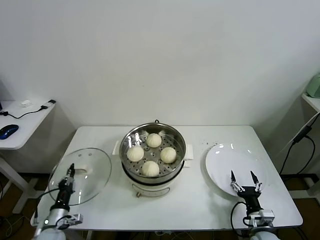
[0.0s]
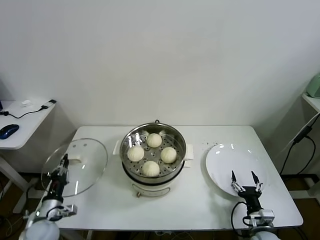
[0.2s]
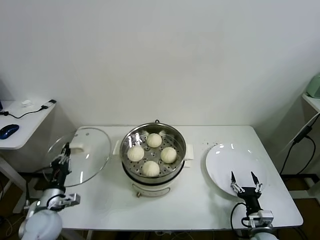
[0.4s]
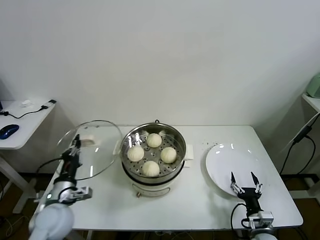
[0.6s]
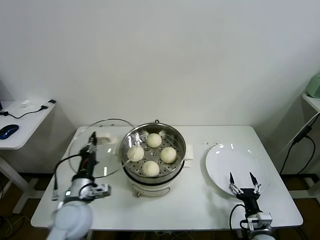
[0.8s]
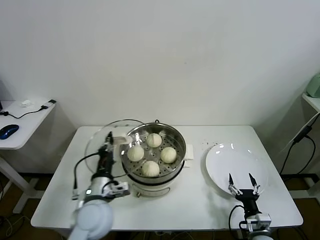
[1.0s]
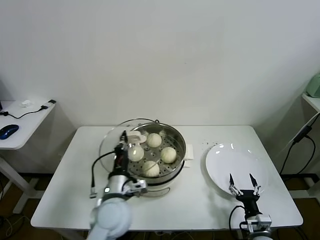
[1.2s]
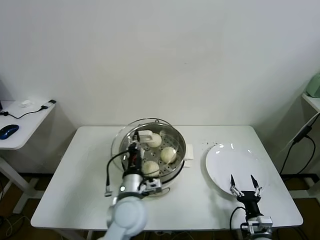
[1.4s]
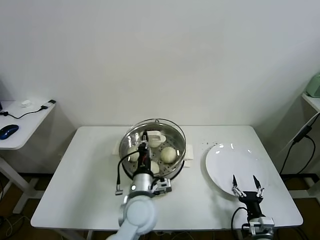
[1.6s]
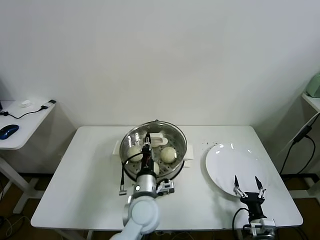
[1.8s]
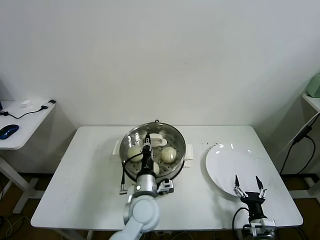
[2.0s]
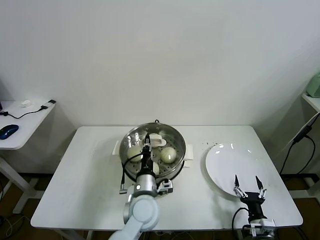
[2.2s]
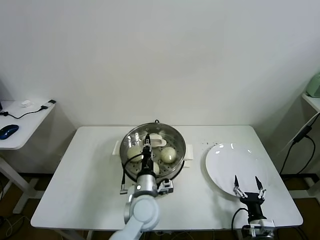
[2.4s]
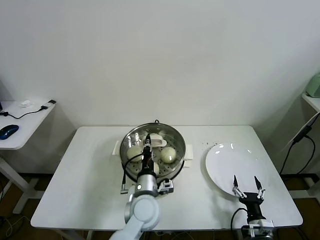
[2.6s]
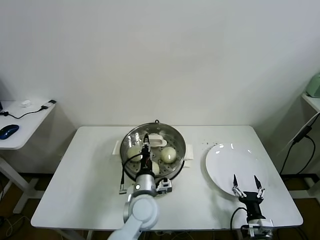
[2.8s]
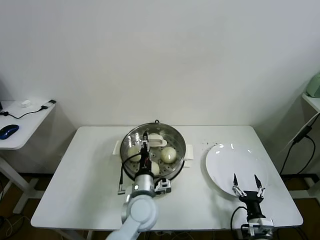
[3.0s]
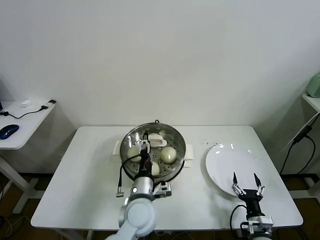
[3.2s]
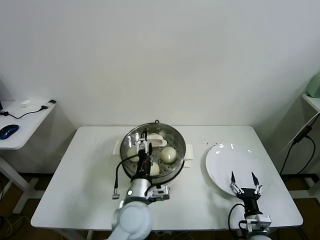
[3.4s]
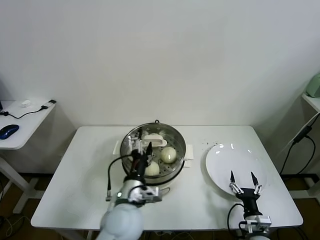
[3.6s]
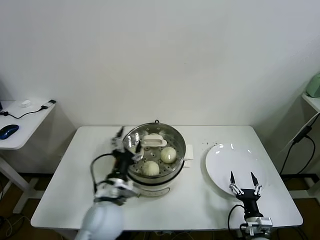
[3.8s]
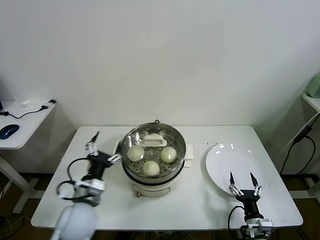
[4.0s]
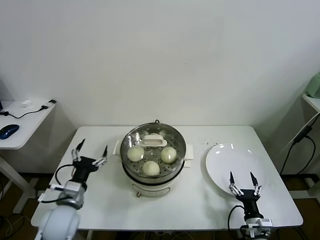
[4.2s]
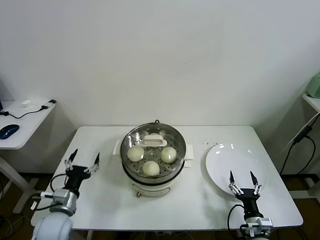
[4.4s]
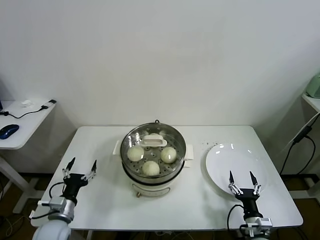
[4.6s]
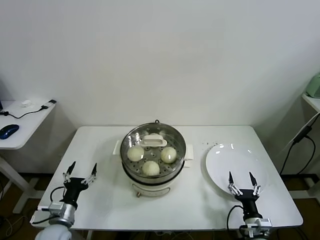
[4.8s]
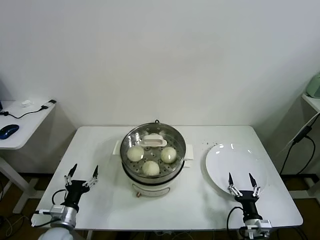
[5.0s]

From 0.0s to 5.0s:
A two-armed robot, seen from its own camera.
Task of the whole recording: take steamed baozi put them in steamer.
Step, from 0.0s to 2.8s: Place the pot lid on the steamer with left gripper.
From 0.0s to 1.6s: The left gripper is displaced to the right and upward by roughly 35 cm.
From 1.6s to 3.4s: The left gripper opens up.
From 3.4s to 5.0s: The left gripper travels to the left and downward by approximately 30 cm.

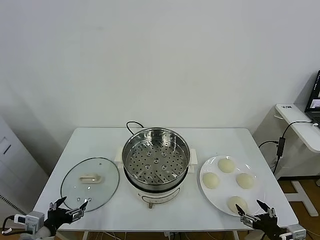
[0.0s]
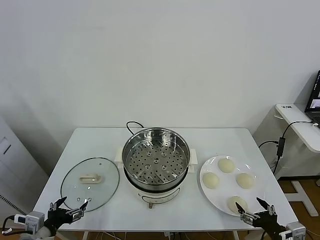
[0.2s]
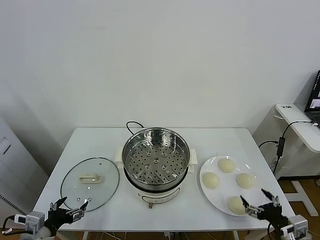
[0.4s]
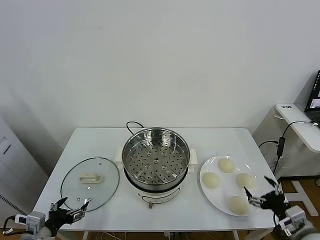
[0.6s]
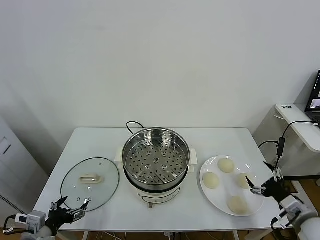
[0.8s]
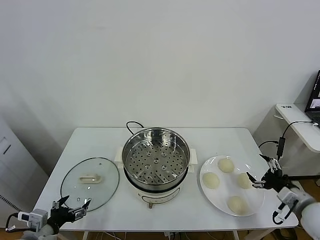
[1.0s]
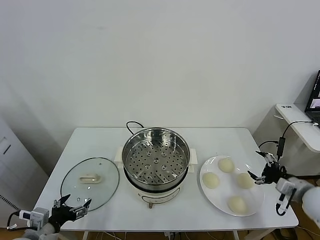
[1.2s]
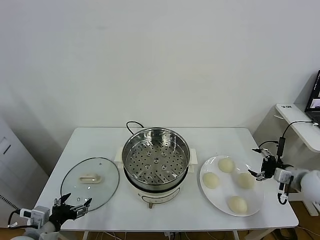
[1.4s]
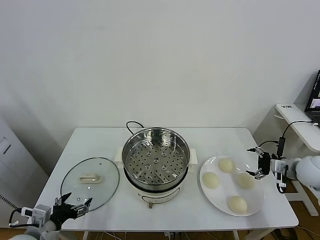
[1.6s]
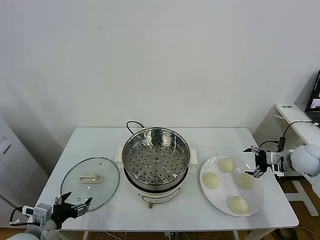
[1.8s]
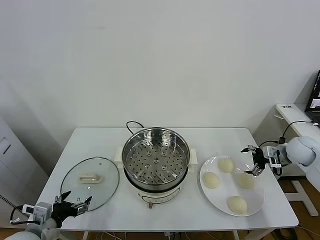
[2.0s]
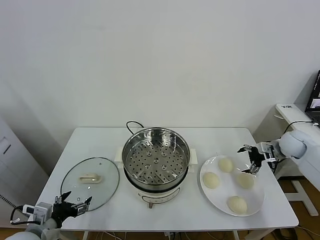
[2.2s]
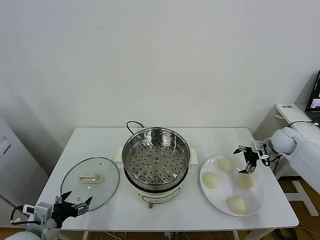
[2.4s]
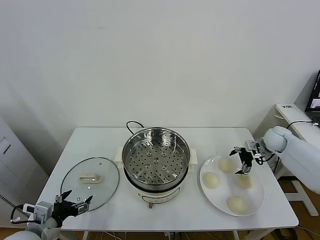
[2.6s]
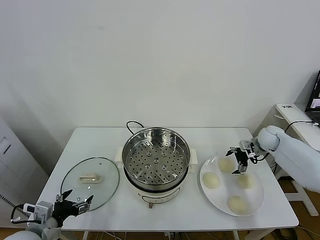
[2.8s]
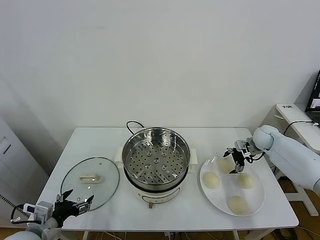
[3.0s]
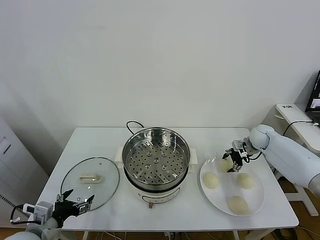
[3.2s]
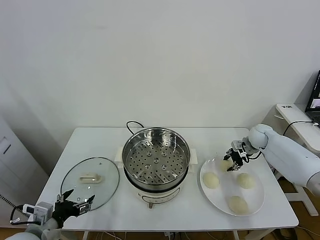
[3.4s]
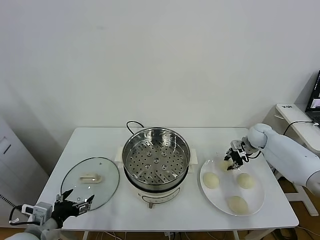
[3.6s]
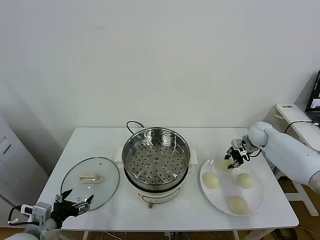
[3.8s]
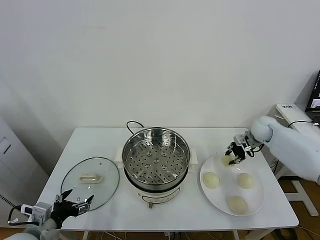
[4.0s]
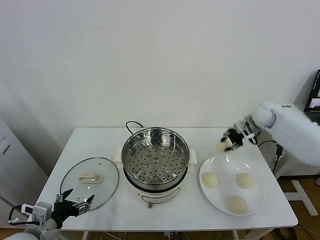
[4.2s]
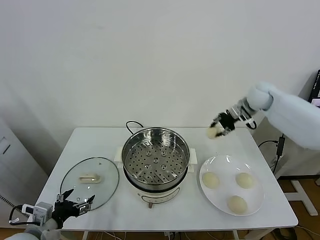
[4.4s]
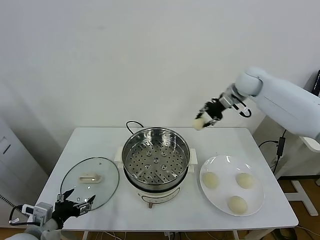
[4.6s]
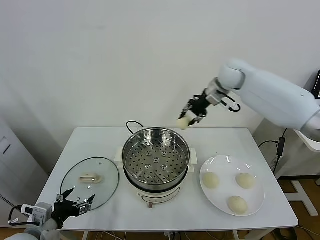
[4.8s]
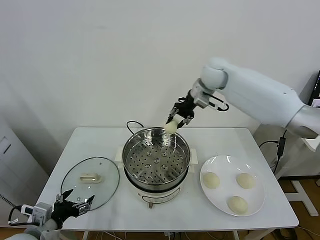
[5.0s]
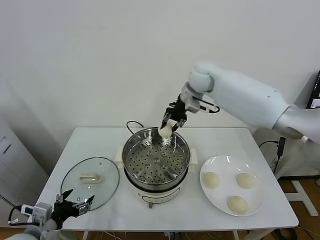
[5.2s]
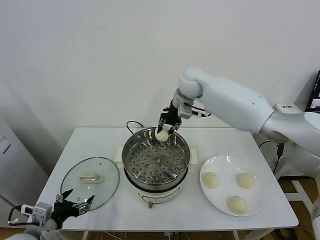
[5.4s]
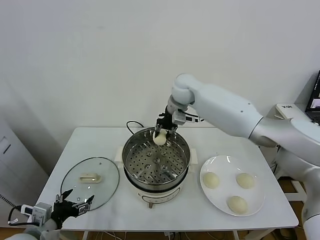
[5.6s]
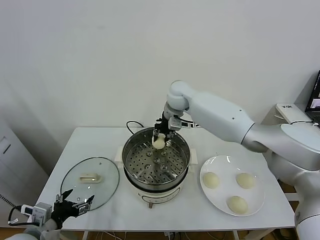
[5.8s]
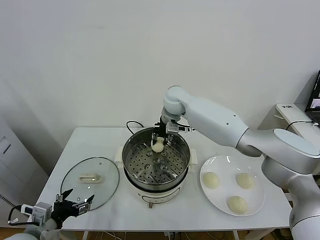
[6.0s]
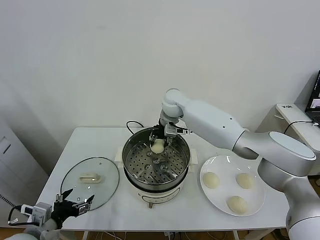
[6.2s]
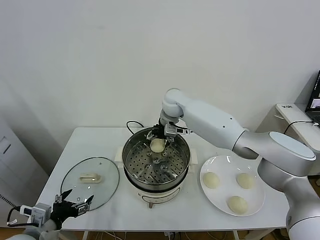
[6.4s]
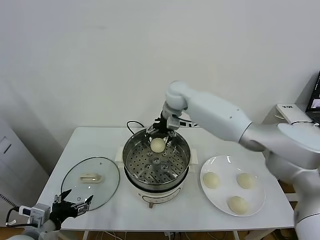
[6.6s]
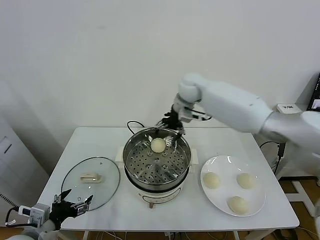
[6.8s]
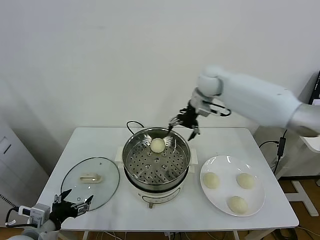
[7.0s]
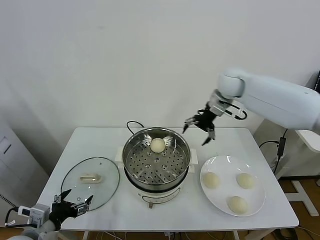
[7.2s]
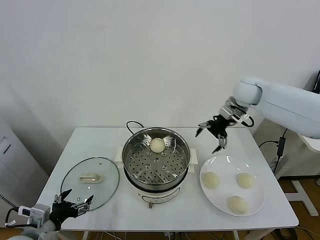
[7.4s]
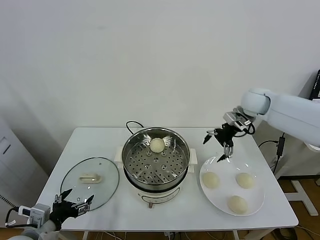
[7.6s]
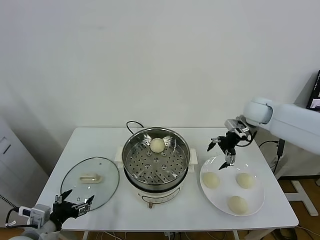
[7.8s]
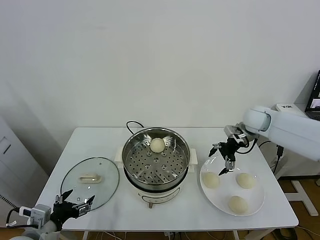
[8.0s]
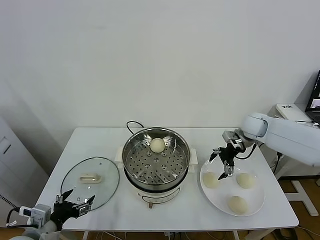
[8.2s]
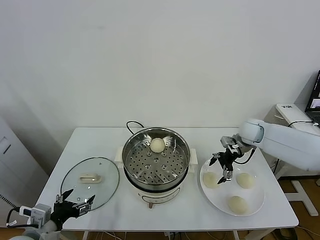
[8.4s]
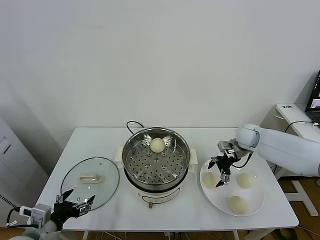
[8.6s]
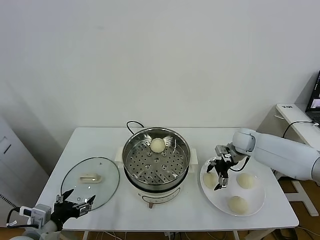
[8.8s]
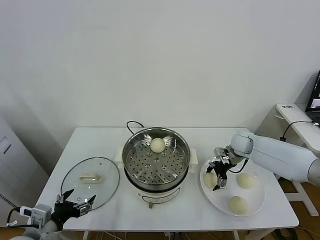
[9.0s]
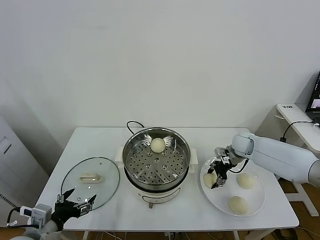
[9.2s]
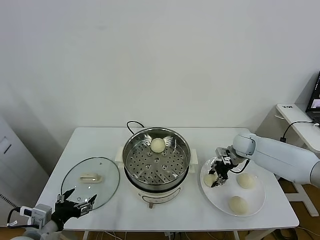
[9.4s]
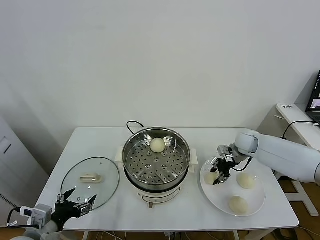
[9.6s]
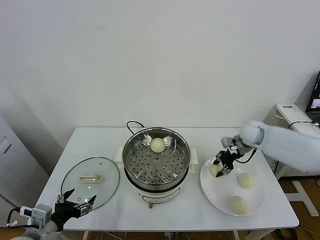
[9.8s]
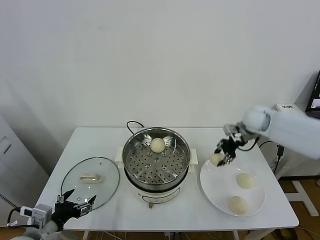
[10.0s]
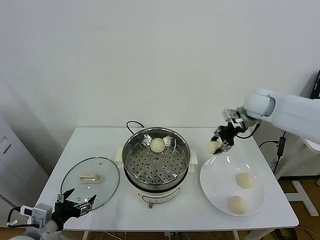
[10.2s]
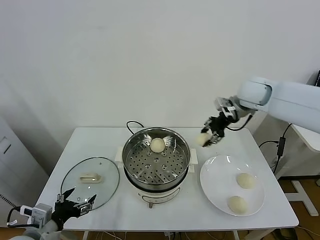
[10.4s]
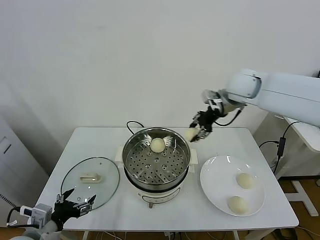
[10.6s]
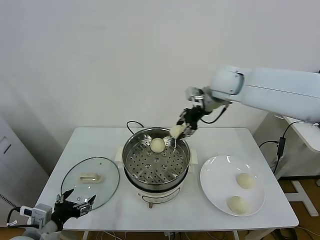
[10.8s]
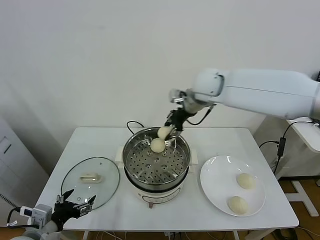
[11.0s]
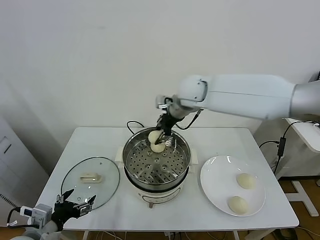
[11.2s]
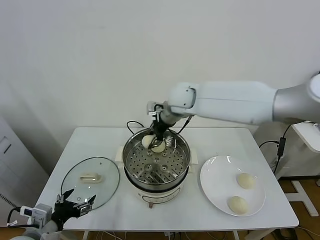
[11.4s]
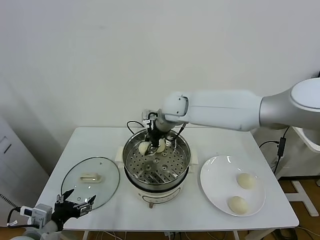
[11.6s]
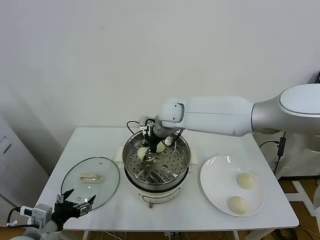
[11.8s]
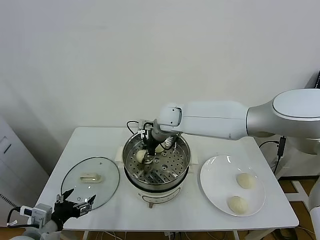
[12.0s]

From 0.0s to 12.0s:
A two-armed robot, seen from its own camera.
Task of the whole recording: take steamed baozi put them in steamer.
Step, from 0.0s to 3.2s: Grasp the baozi in the plate with right gripper.
Step, from 3.4s to 6.4s: Place the baozi on the steamer with right gripper.
Step, from 6.6s to 9.2s: Grasp the baozi in the plate with right gripper.
From 1.6s to 3.0s: The right gripper shifts some 15 cm forward.
From 3.0s to 4.4s: The right gripper heads upward and to the left, covering approximately 20 cm, and closes up.
From 4.4s to 6.0s: The right gripper goes roughly 30 cm to the left.
From 6.0s to 7.6s: The right gripper moves to the right, roughly 25 cm, and opens its fingers.
From 7.6s to 9.0s: The right gripper goes some 20 cm downward.
From 9.0s to 10.4s: The right gripper shifts approximately 25 cm upward, and closes its fingers.
From 10.4s to 12.0s: The right gripper shifts about 25 cm to the left and downward.

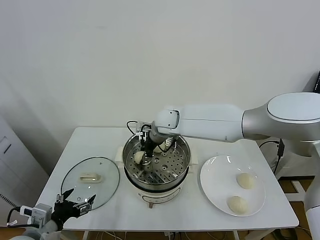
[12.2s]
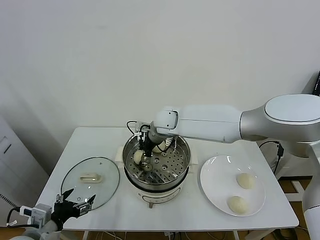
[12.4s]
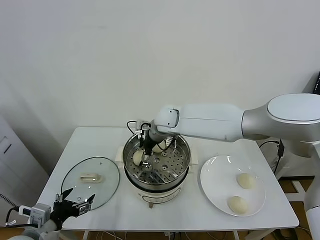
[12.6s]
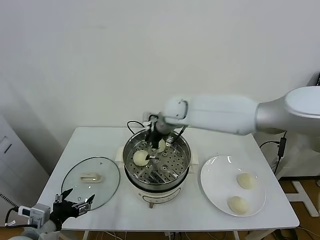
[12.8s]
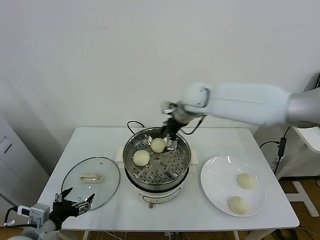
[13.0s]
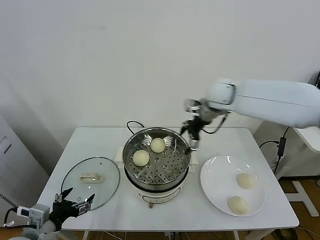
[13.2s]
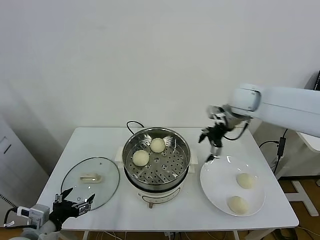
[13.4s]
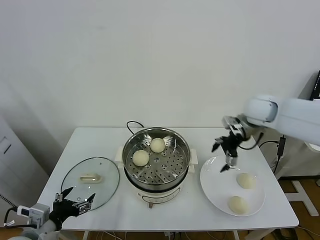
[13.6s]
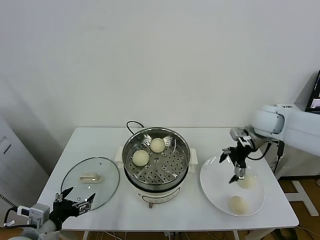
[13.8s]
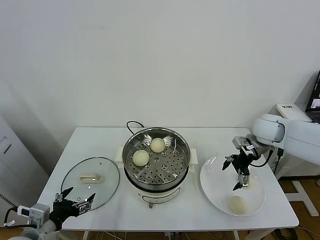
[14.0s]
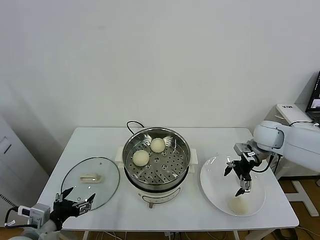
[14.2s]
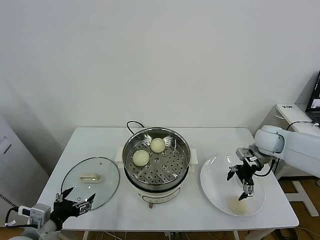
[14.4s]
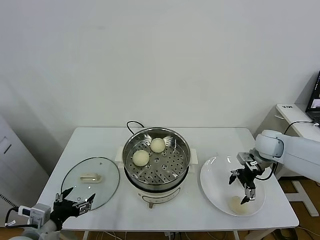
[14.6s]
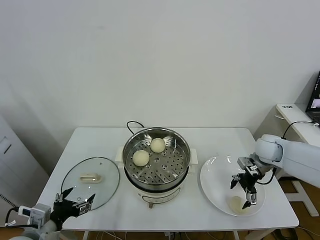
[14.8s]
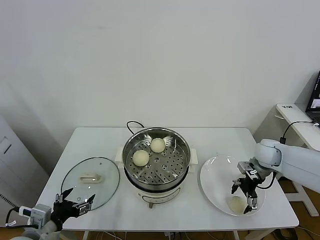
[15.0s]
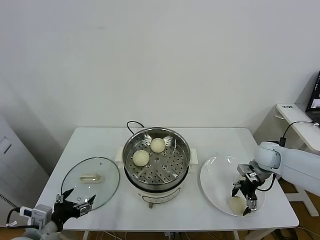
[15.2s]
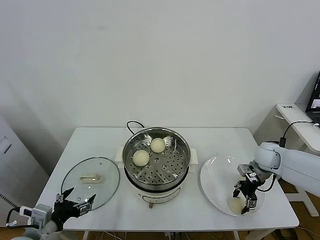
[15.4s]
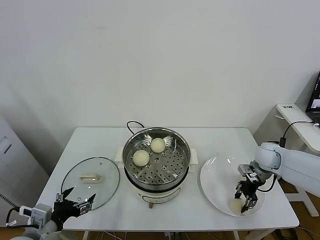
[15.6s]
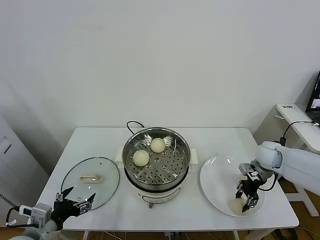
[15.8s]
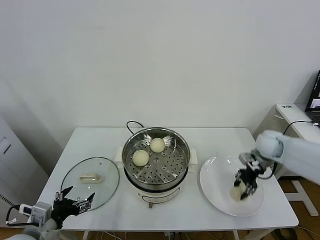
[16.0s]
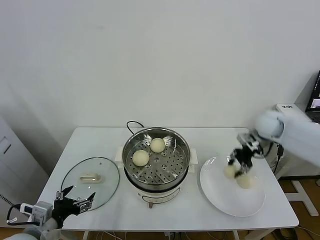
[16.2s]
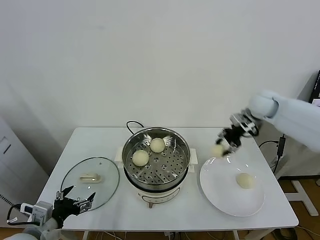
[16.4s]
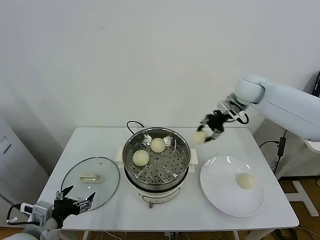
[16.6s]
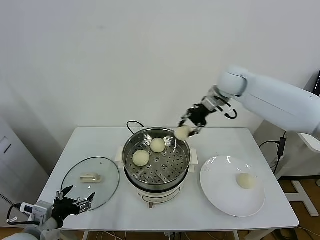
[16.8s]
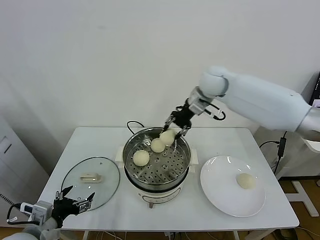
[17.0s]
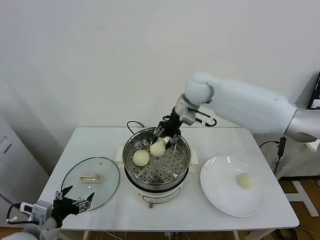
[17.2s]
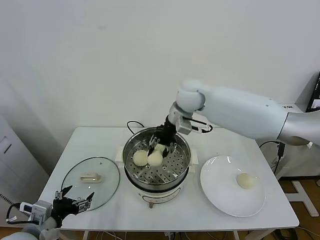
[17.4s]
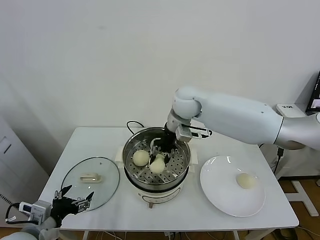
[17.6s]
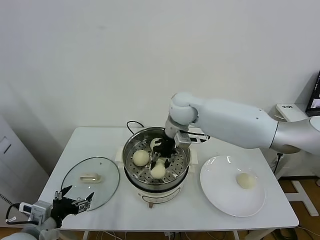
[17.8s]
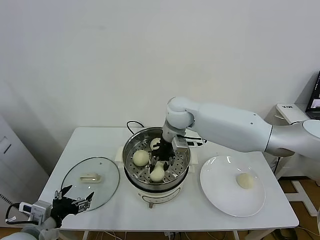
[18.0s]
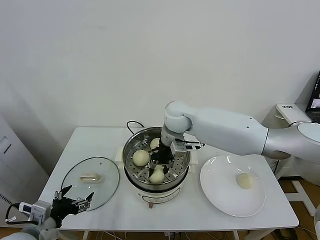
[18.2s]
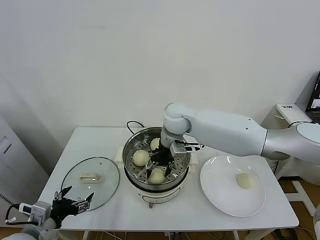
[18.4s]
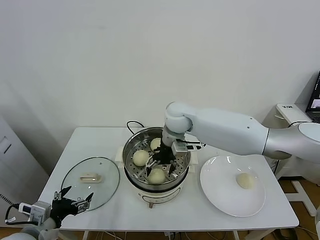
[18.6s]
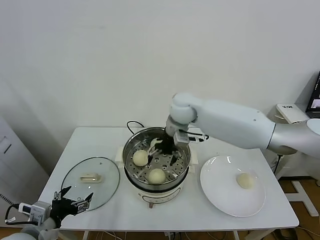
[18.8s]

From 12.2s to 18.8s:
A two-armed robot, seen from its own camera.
Task of the whole recording: take steamed baozi put them in steamer.
Step, from 12.8s to 15.4s: Grasp the baozi in the plate with right gripper.
Step, from 15.6s to 18.6s: Place the baozi on the steamer with right gripper.
From 12.2s to 13.8s: The right gripper shifts about 30 cm to the right, and opens its fingers.
From 13.8s to 15.4s: The right gripper travels downward by roughly 15 cm, and closes up.
From 15.4s to 17.2s: The right gripper goes roughly 35 cm to the left and upward, and closes up.
From 17.2s to 18.8s: The right gripper travels downward by roughly 5 cm, and opens.
